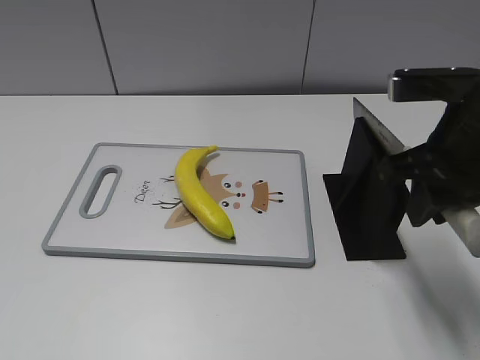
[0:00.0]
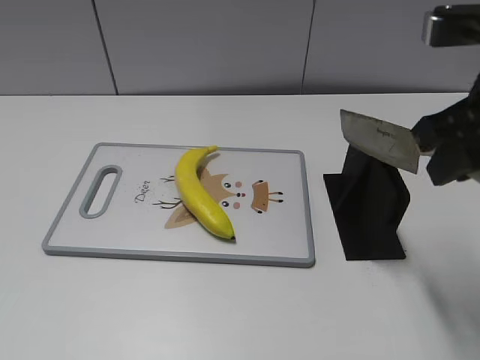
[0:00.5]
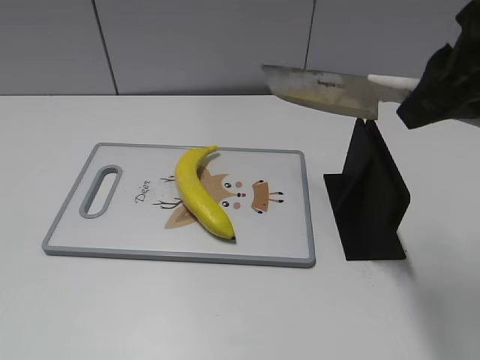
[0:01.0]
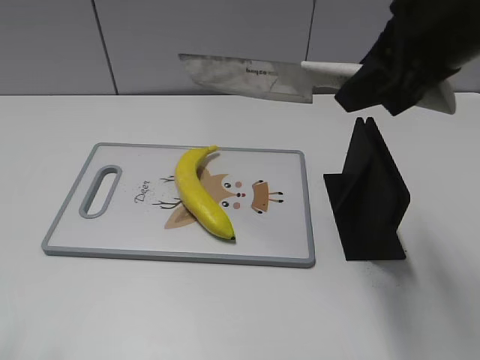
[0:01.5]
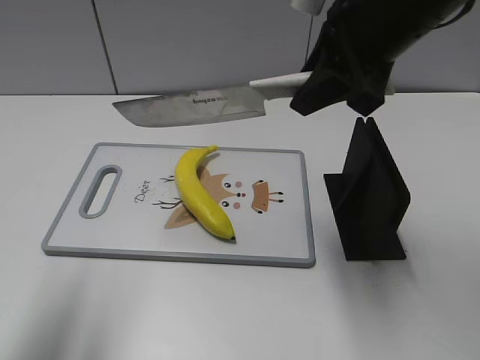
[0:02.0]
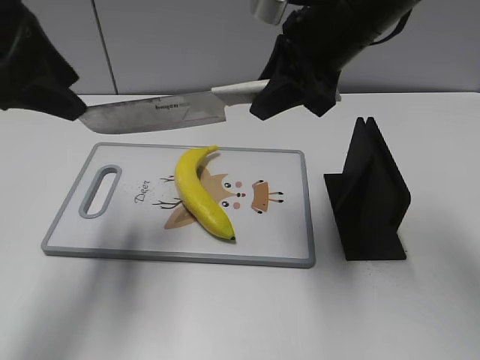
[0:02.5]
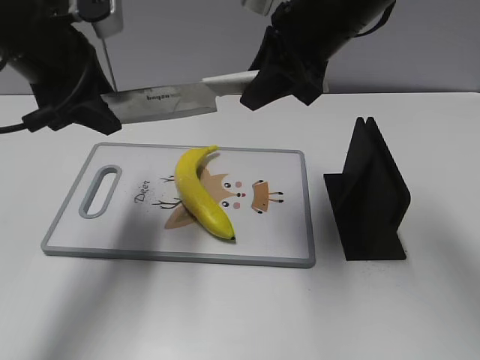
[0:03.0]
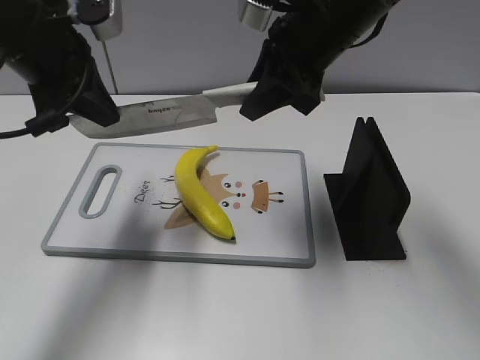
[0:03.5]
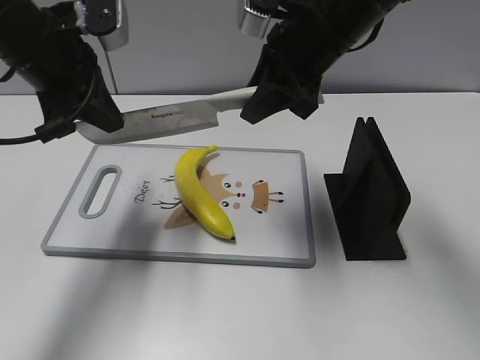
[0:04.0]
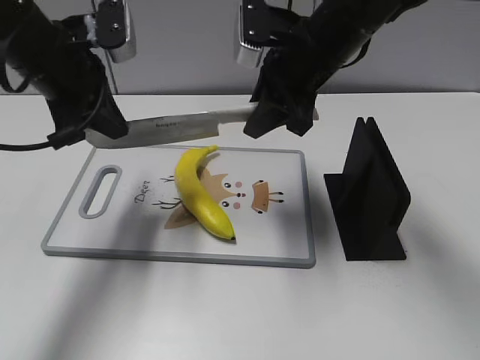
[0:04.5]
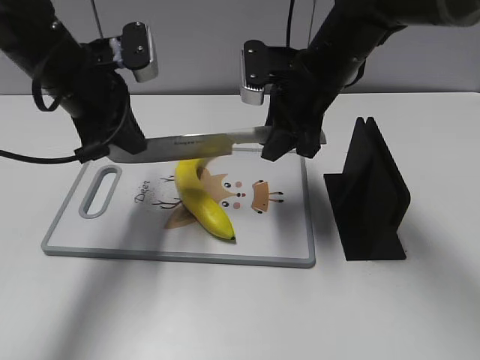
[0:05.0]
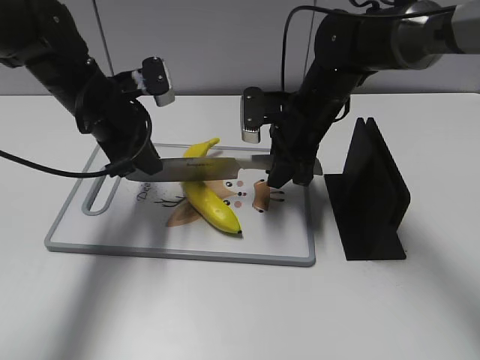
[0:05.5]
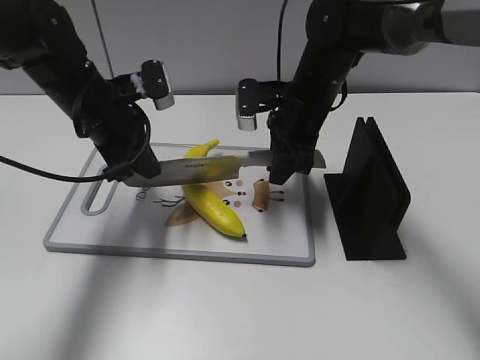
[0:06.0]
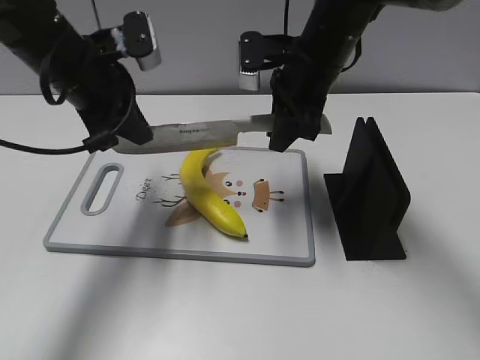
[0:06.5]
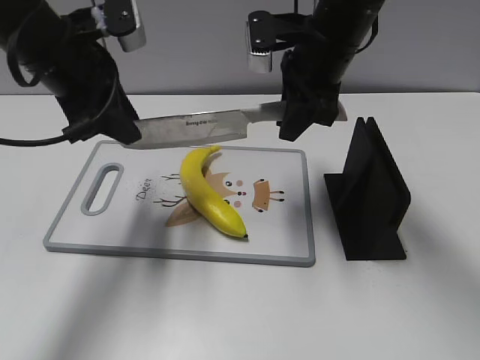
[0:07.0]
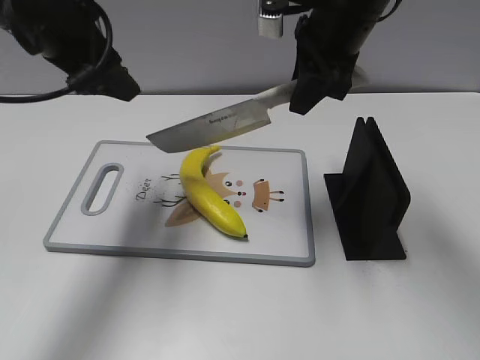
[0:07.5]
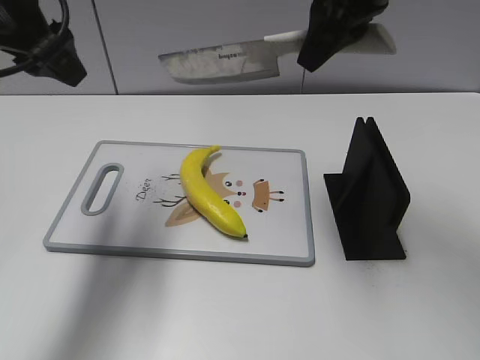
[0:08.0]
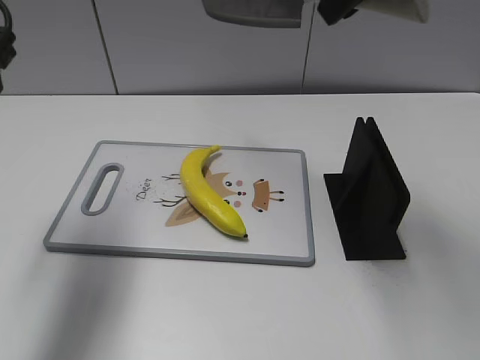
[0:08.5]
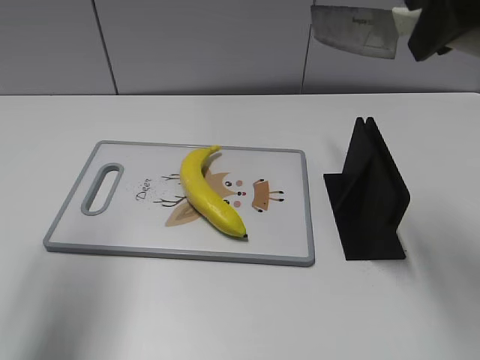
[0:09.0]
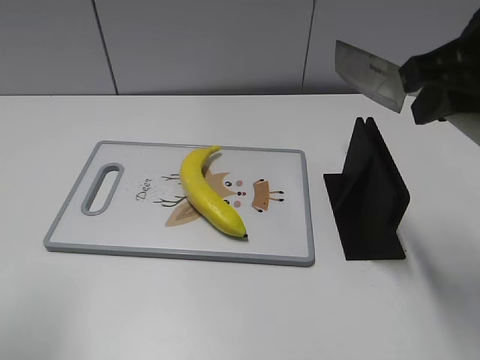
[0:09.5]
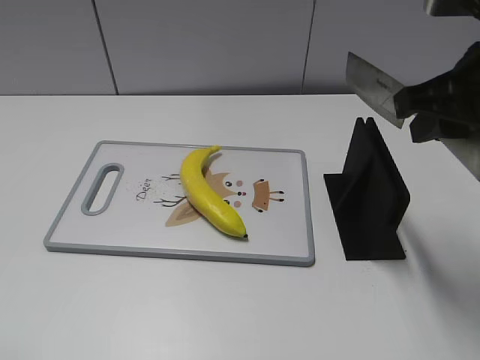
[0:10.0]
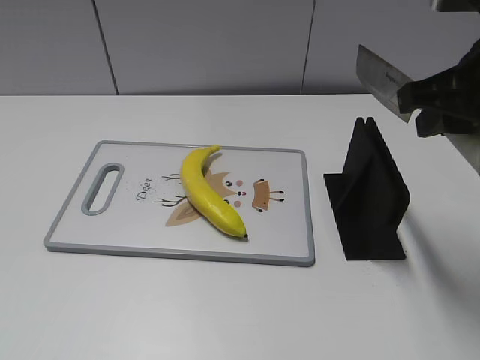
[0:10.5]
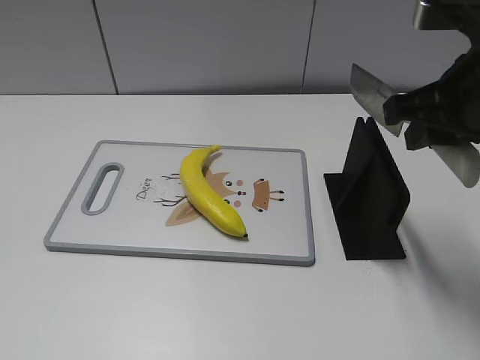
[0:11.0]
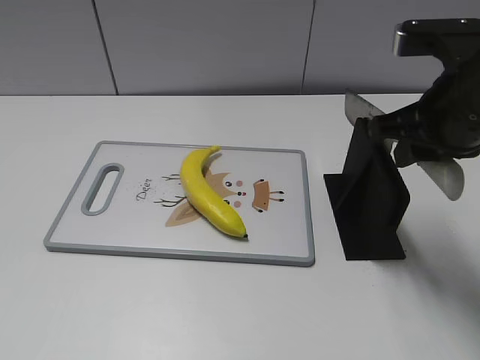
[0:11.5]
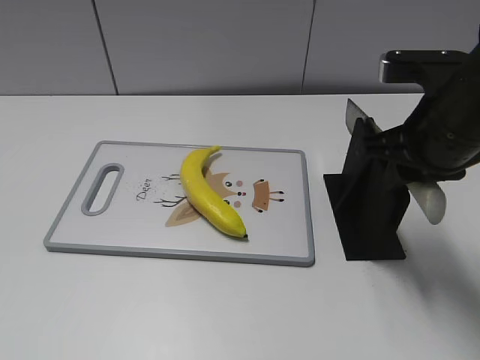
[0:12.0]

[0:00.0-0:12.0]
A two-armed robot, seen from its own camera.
Task of the whole recording: cut plastic banana.
Step, 0:01.0 to 0:06.0: Lift the knife with your right hand.
Step, 0:06.5 to 0:08.5: Cut the banana with your right hand.
Step, 0:09.0 to 0:09.5: Lift the knife with your right hand.
0:00.0 to 0:02.0: The right gripper travels upward, forward and to the left by approximately 10 cm, while the left gripper is displaced forward by roughly 20 cm.
0:02.0 to 0:04.0: The left gripper is displaced forward, to the right and downward by approximately 20 cm, and closes its fingers. The right gripper shifts some 5 cm forward.
0:04.0 to 0:06.0: The two grippers go roughly 10 cm downward.
0:06.0 to 0:08.0: The two grippers go about 15 cm upward. The left gripper opens up.
0:08.0 to 0:10.0: The right gripper shifts approximately 15 cm backward, to the right and downward; the left gripper shifts approximately 25 cm backward.
0:10.0 to 0:12.0: The right gripper heads downward, covering about 5 cm.

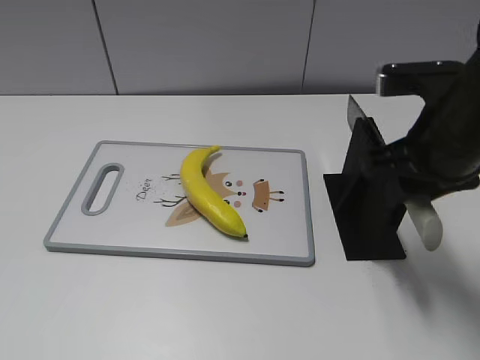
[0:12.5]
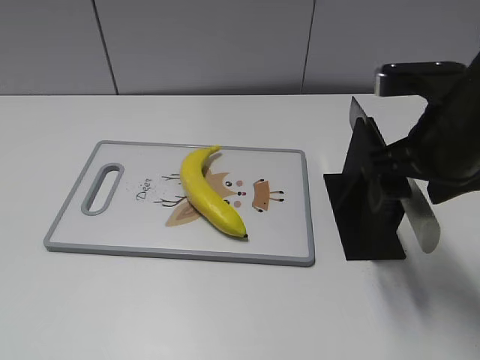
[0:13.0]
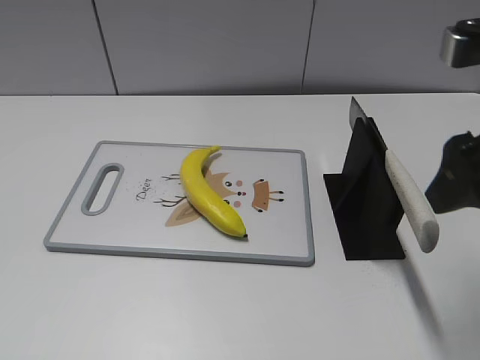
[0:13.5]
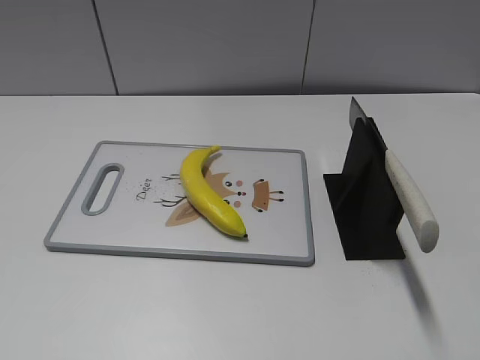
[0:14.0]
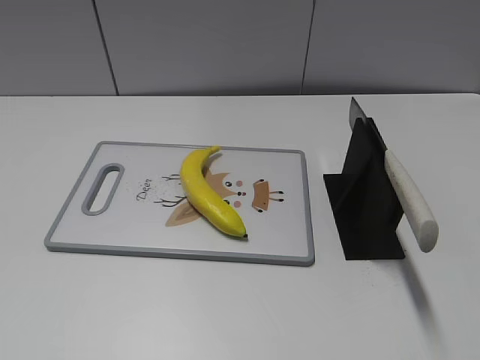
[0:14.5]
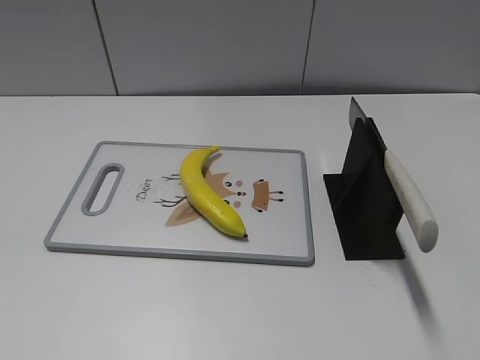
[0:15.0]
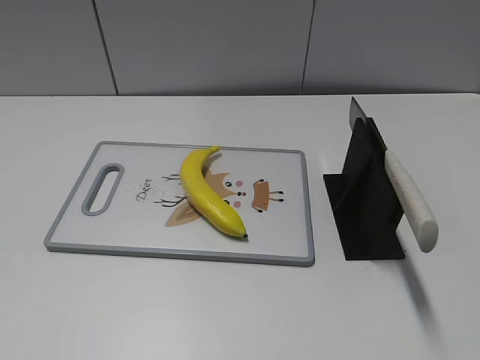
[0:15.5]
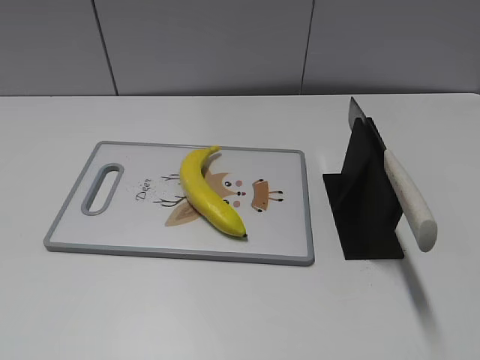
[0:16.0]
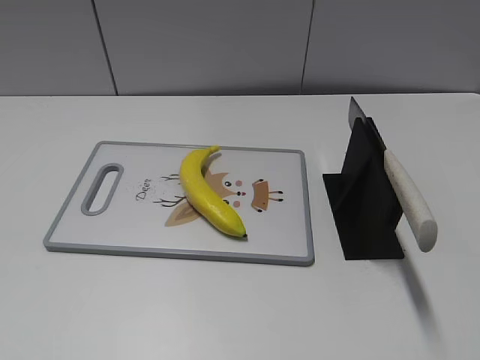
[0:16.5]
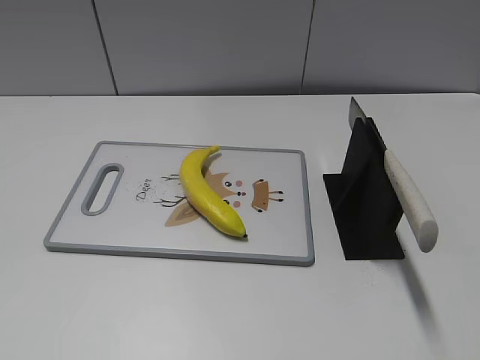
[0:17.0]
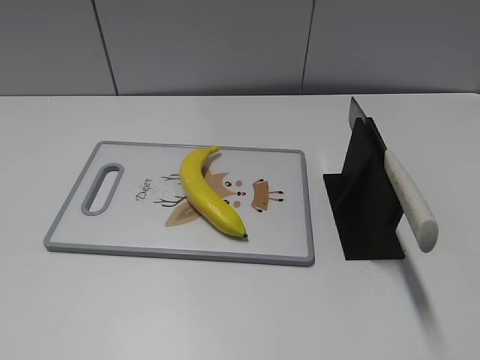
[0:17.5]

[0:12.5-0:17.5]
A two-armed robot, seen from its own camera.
Task of the whole recording: cut plastic banana.
Step, 0:12.5 to 0:17.5: Place the knife on the storage rack with your right hand.
0:12.5 to 0:15.0: The right gripper heads backward and to the right, covering about 30 cm, and opens its fingers.
